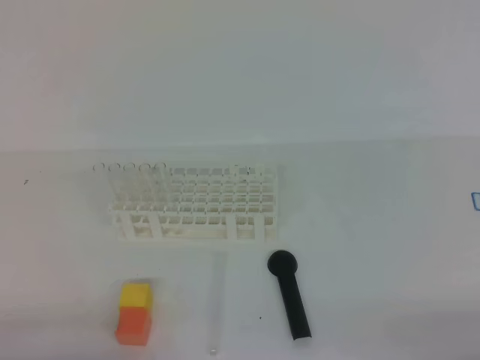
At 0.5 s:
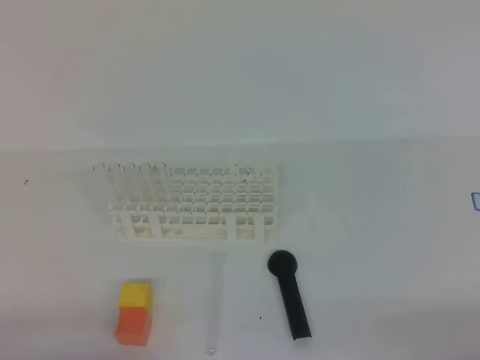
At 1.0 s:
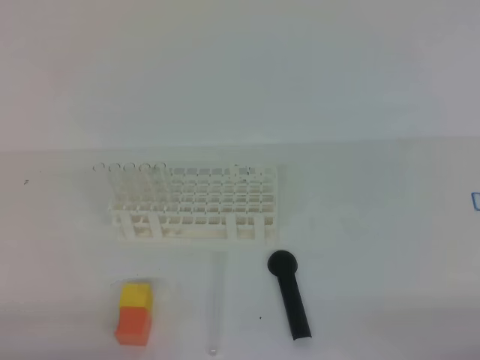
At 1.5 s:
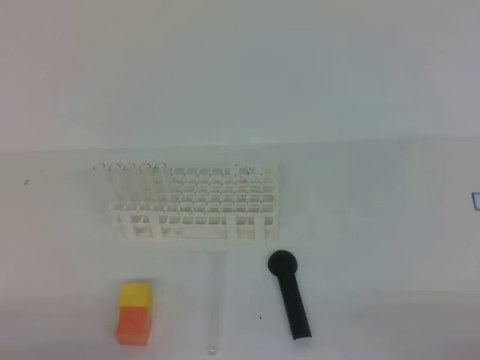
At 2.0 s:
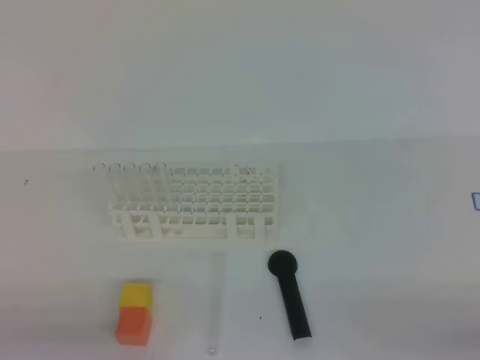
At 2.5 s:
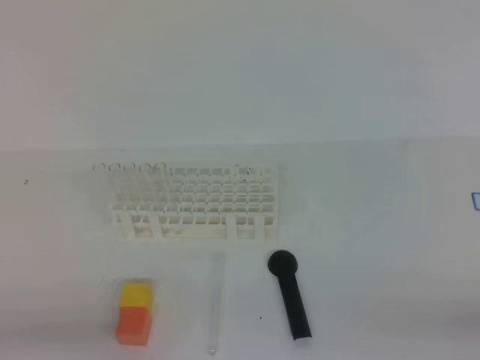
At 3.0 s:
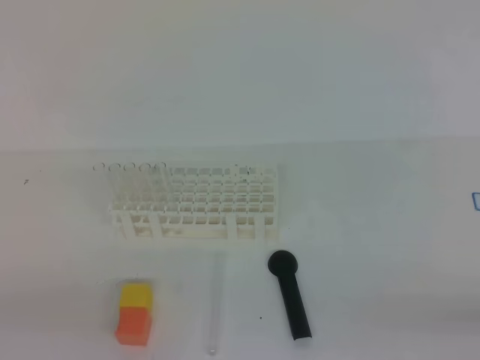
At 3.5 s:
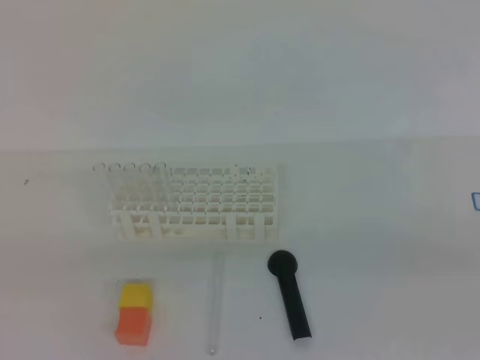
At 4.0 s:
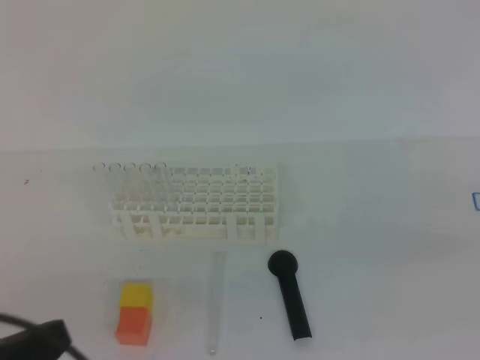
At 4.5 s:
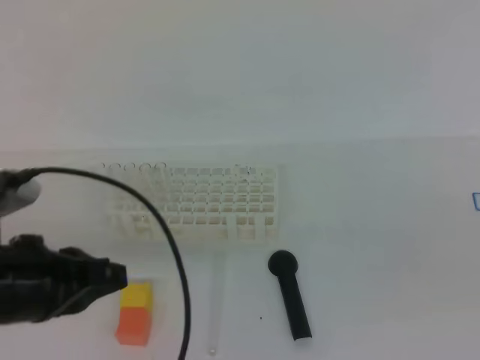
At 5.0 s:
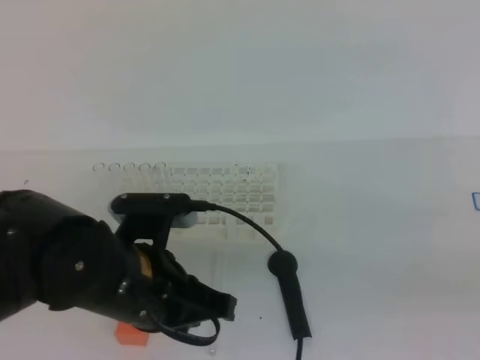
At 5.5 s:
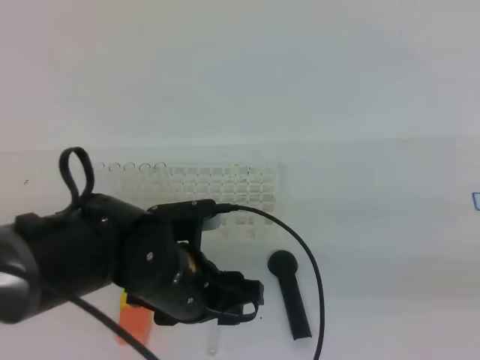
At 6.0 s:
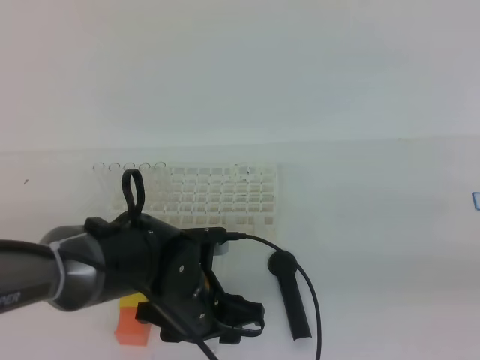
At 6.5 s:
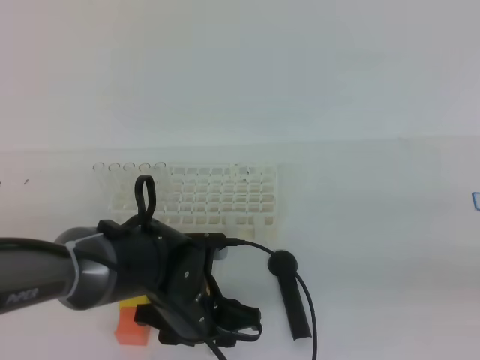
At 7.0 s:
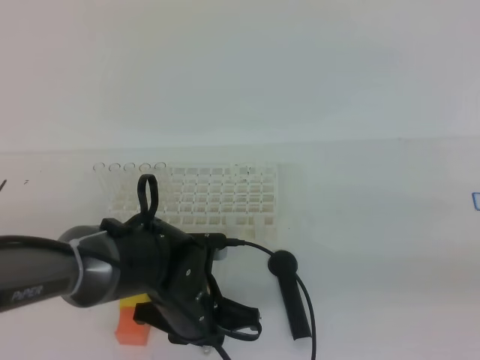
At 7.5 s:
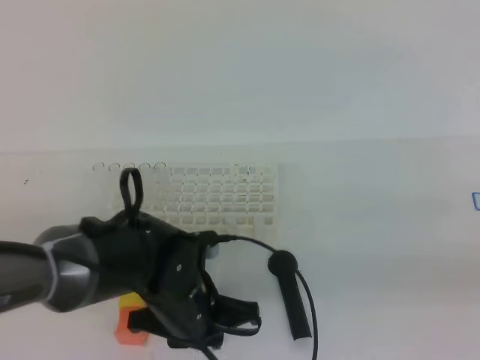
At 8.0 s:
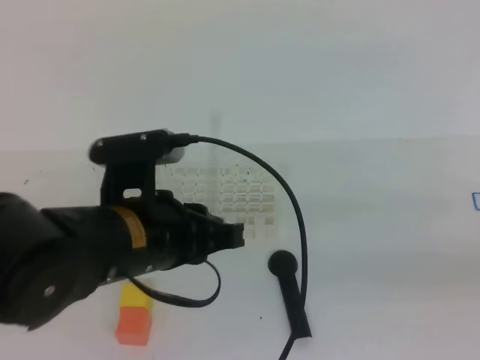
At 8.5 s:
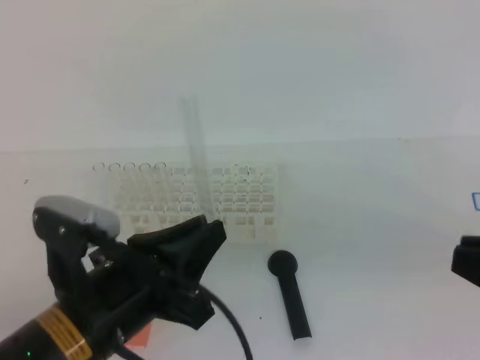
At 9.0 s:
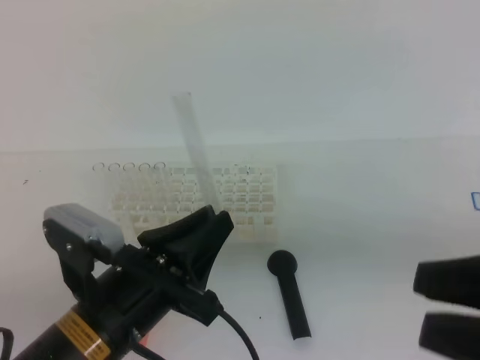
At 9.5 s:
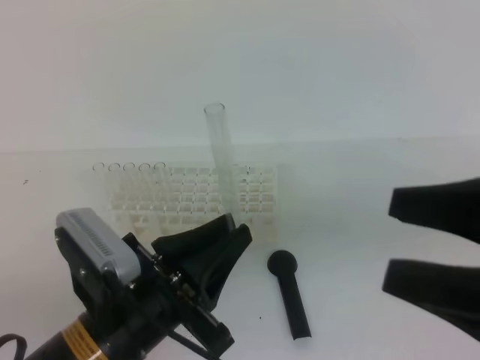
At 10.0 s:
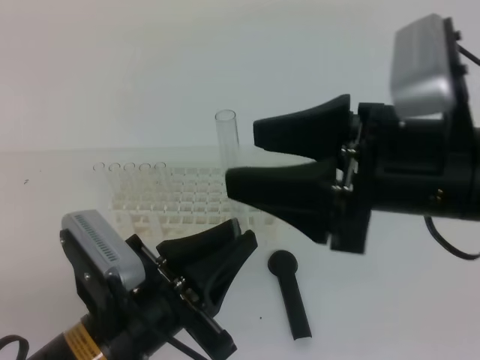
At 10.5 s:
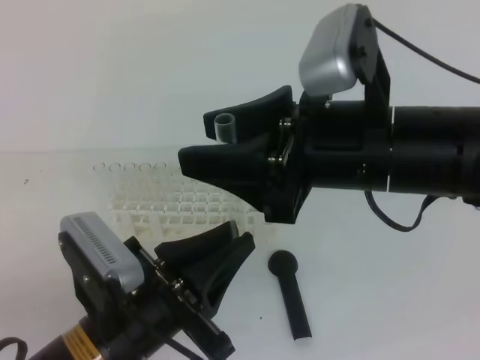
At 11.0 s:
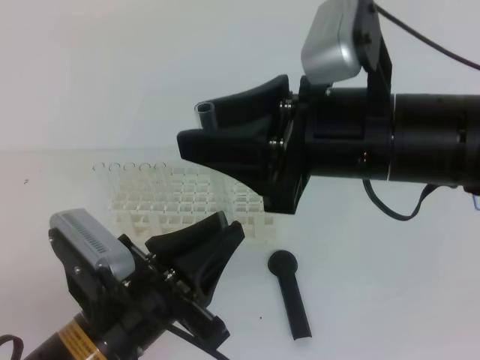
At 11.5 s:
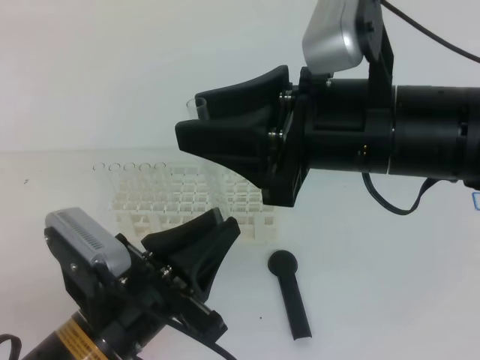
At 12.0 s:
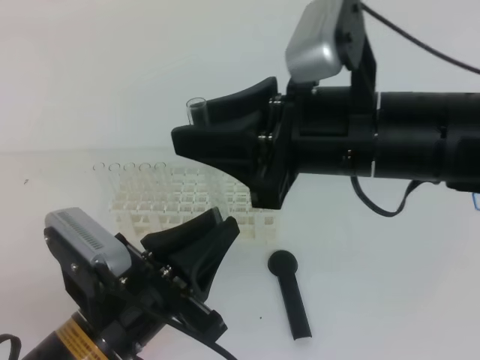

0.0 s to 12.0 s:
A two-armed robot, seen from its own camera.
2.0 to 4.0 s: The left gripper shifts approximately 10 cm upward.
4.0 to 6.0 s: The left gripper moves to the right, forward and downward, roughly 25 cm, and opens its fingers. The right gripper moves approximately 5 cm.
6.0 to 8.0 s: The left gripper travels upward by about 10 cm, and closes up.
8.0 to 10.0 s: The left gripper heads backward, covering approximately 5 cm. Meanwhile the right gripper moves to the left, upward and forward, approximately 20 cm, and opens.
10.0 to 12.0 s: The right gripper travels to the left by some 5 cm, and closes.

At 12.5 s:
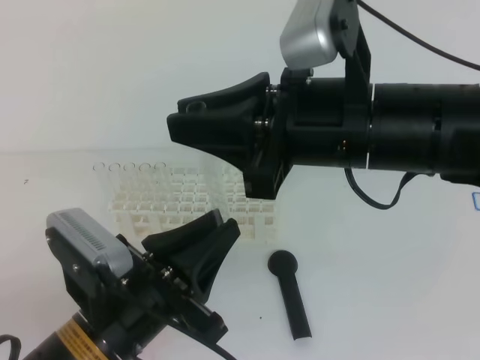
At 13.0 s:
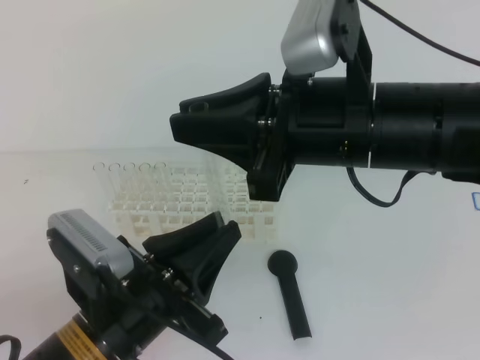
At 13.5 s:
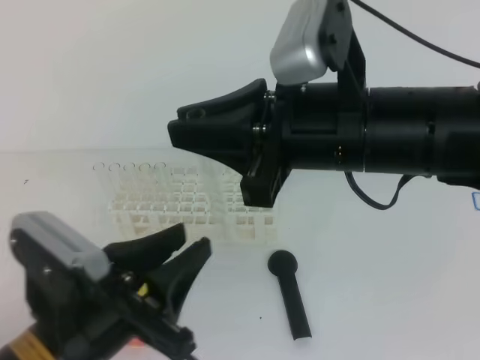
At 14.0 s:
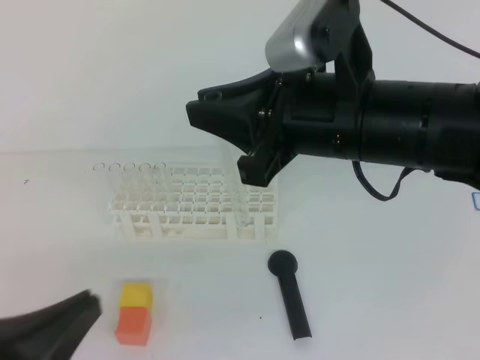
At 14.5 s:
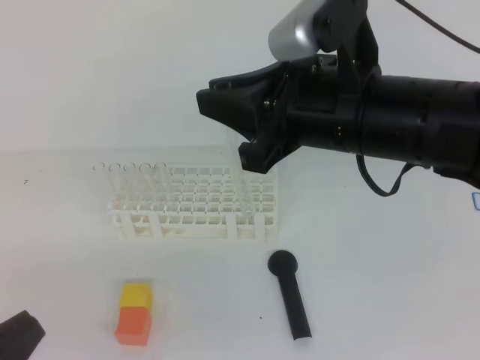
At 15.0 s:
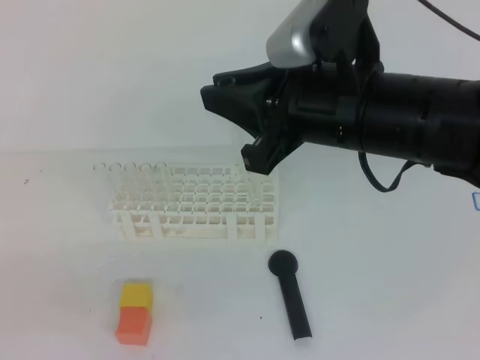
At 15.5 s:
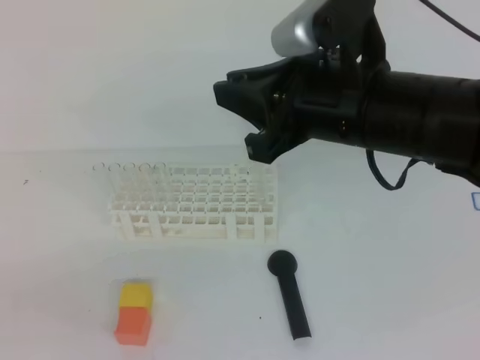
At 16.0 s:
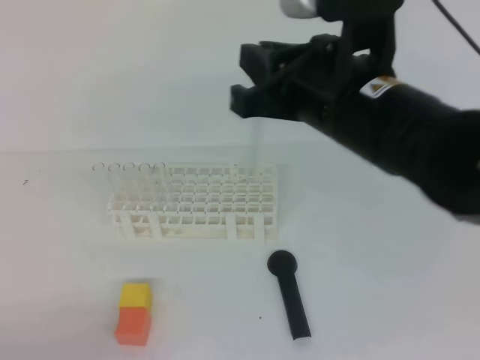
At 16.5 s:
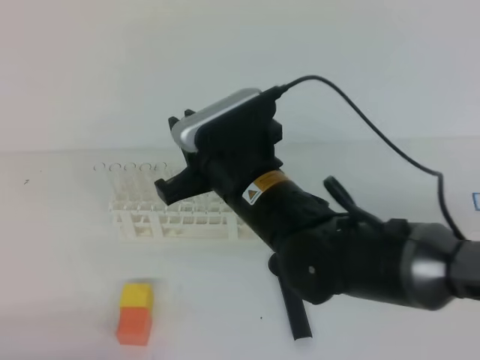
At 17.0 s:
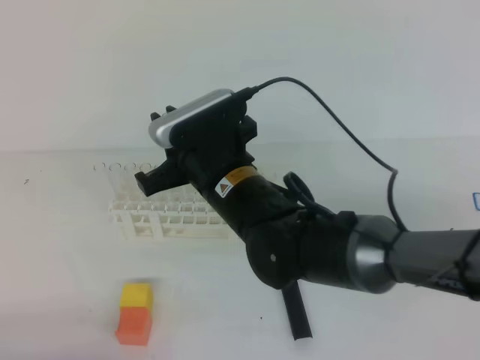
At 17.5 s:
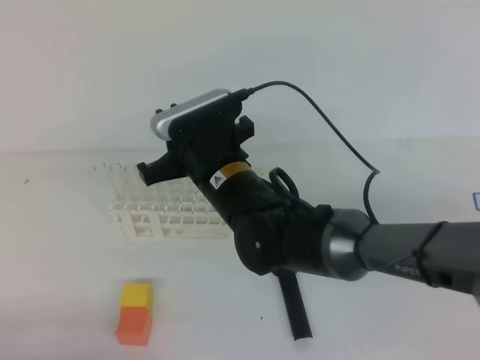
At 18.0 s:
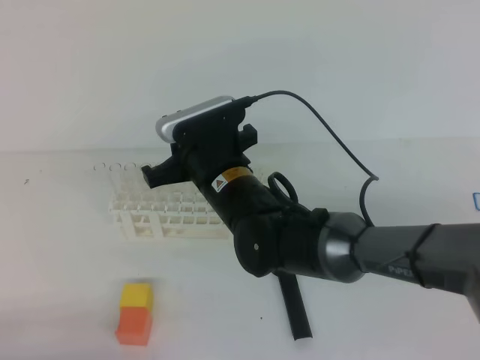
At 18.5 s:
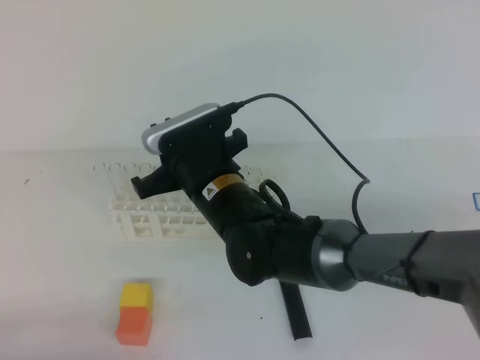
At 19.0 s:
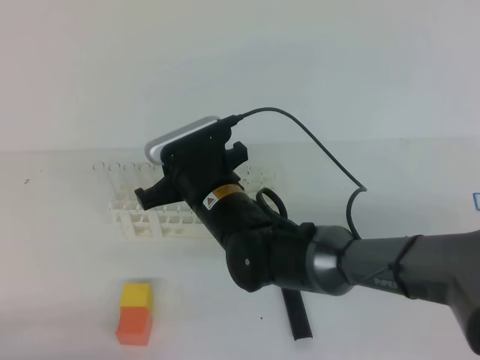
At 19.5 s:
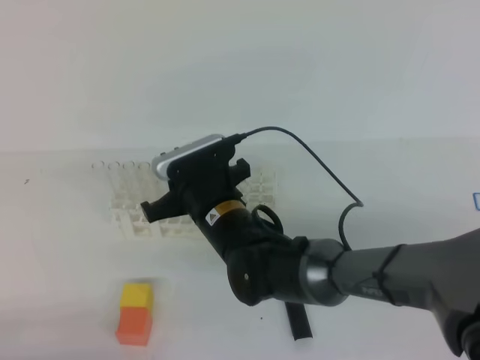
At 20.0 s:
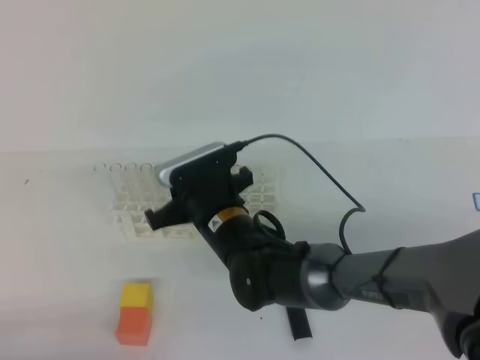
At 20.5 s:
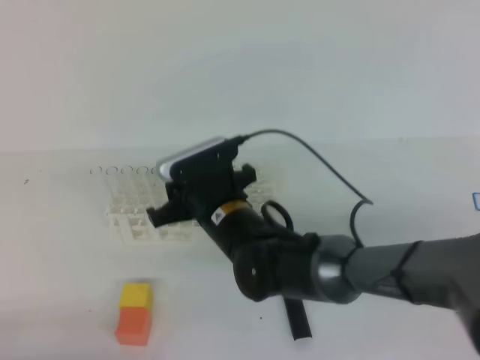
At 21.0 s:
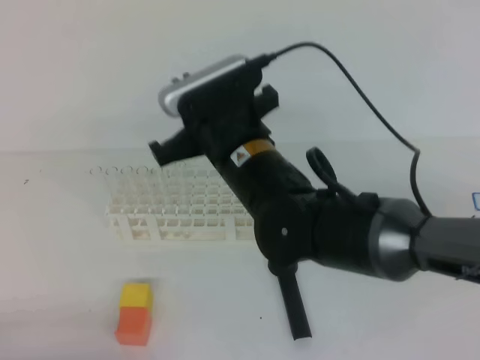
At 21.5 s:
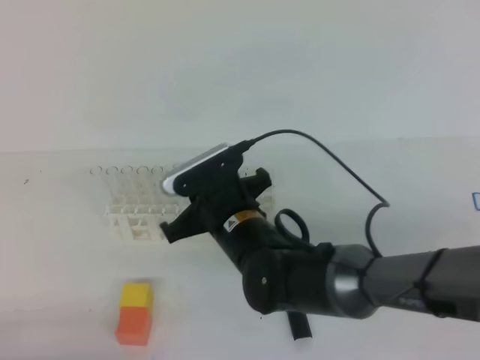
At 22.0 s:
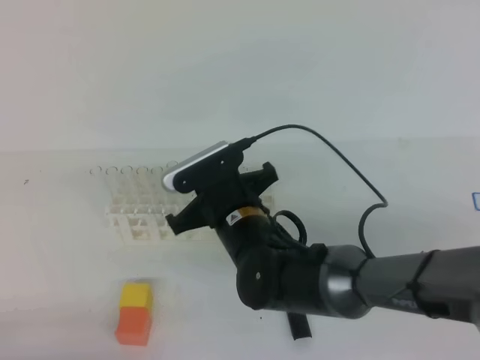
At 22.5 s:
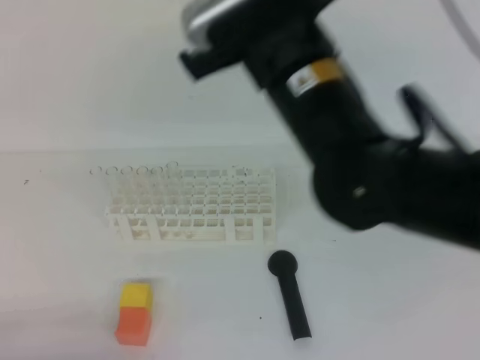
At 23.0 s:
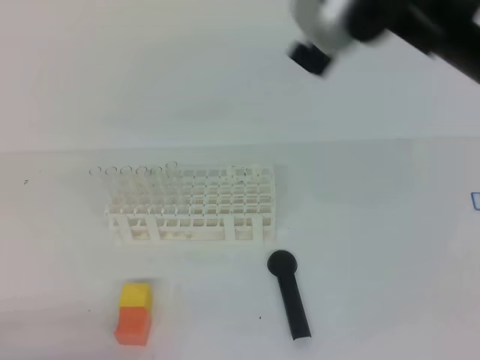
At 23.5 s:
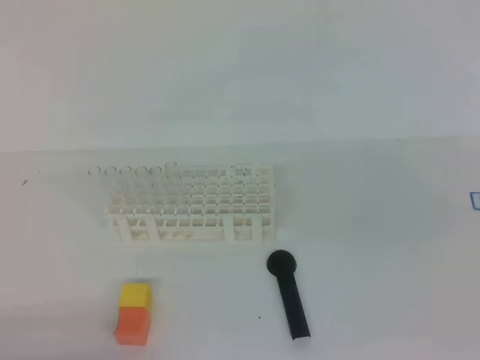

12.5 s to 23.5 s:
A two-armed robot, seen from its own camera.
12.5 to 14.5 s: The left gripper travels to the left and backward by approximately 15 cm, and opens and closes again.
14.5 to 16.0 s: The left gripper shifts approximately 10 cm downward.
16.0 to 18.0 s: The right gripper moves downward, to the left and forward, some 20 cm.
18.0 to 20.0 s: The right gripper shifts about 5 cm downward.
20.0 to 21.5 s: The right gripper moves some 10 cm upward and comes back.
21.5 to 23.5 s: The right gripper travels to the right, backward and upward by about 35 cm.
